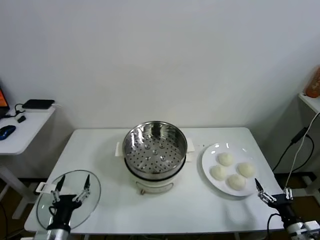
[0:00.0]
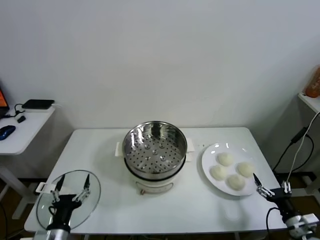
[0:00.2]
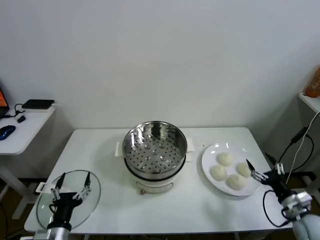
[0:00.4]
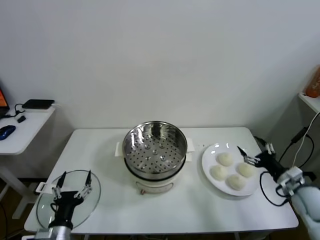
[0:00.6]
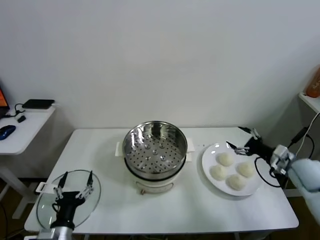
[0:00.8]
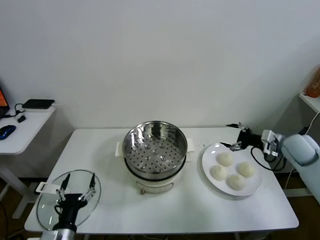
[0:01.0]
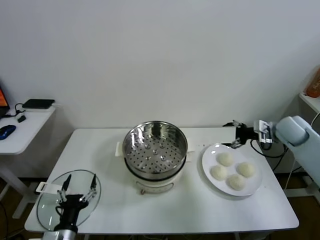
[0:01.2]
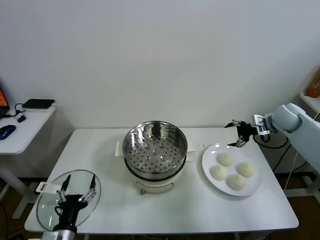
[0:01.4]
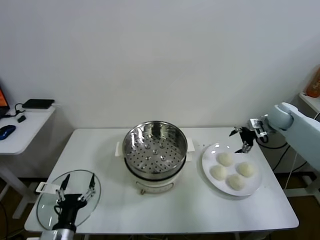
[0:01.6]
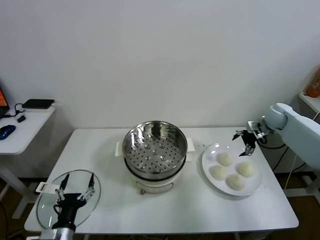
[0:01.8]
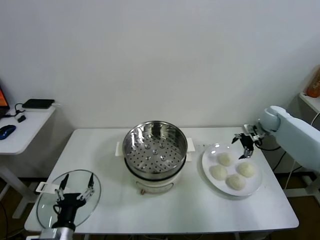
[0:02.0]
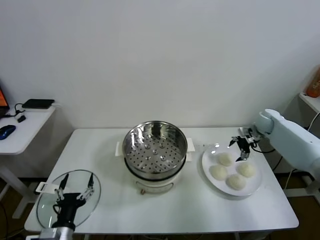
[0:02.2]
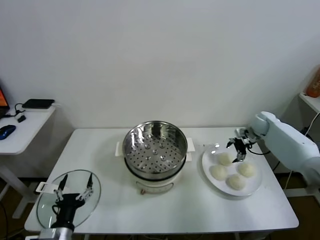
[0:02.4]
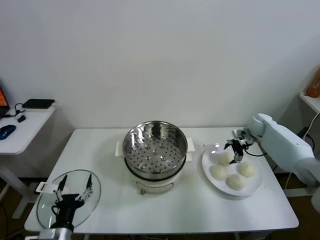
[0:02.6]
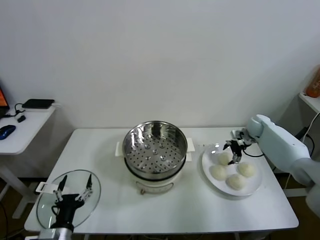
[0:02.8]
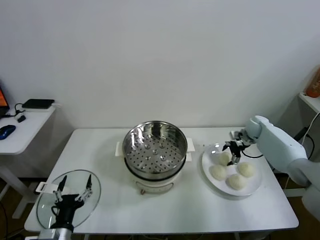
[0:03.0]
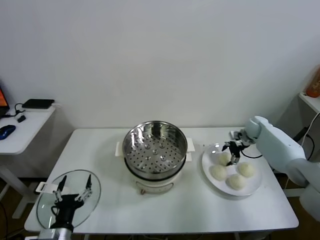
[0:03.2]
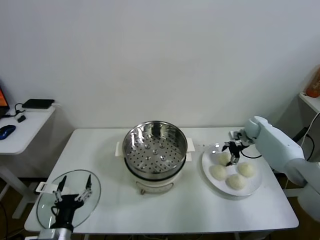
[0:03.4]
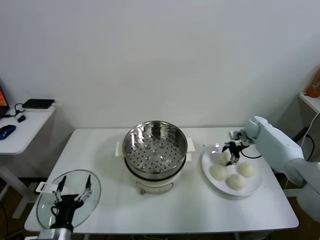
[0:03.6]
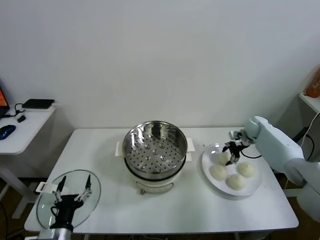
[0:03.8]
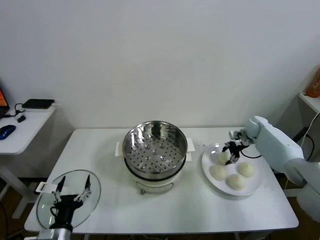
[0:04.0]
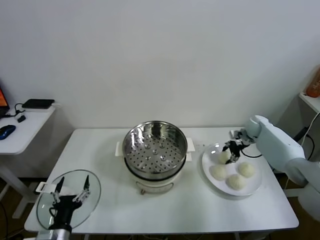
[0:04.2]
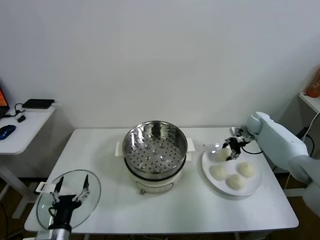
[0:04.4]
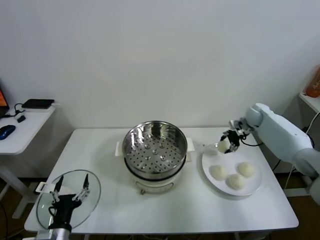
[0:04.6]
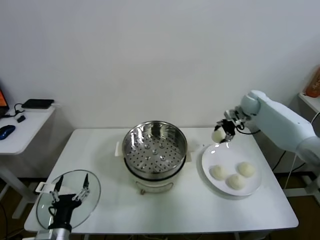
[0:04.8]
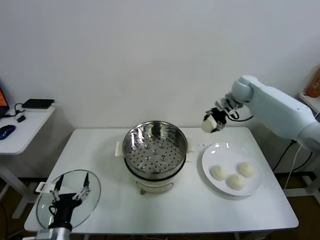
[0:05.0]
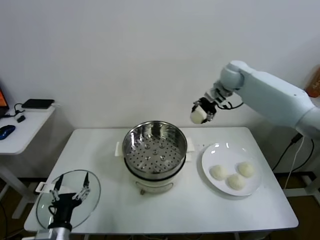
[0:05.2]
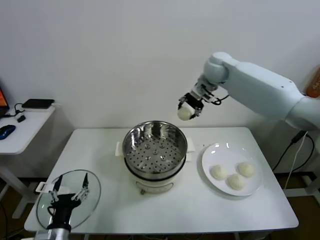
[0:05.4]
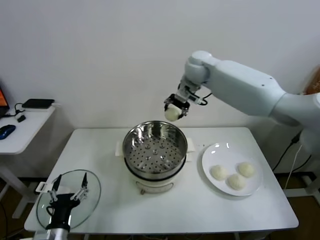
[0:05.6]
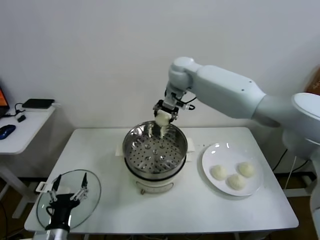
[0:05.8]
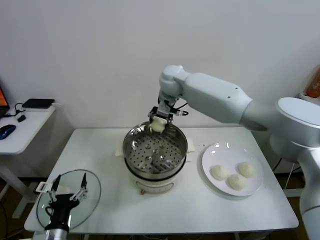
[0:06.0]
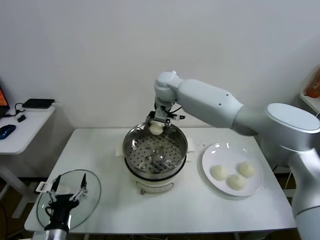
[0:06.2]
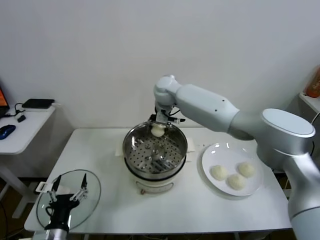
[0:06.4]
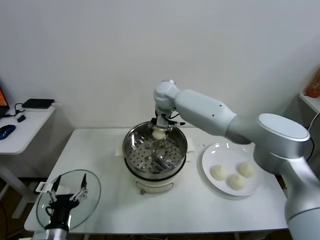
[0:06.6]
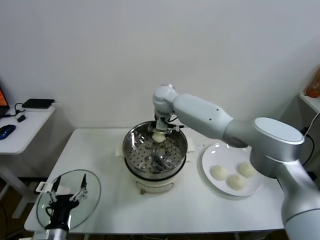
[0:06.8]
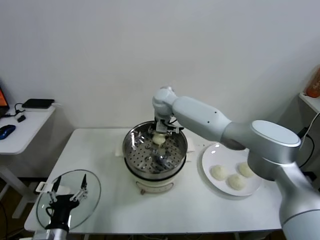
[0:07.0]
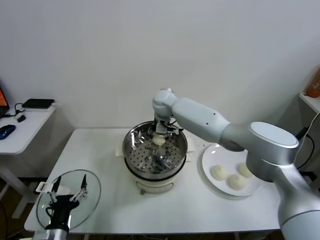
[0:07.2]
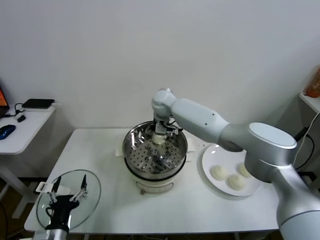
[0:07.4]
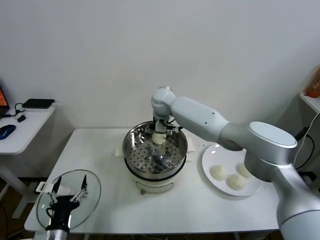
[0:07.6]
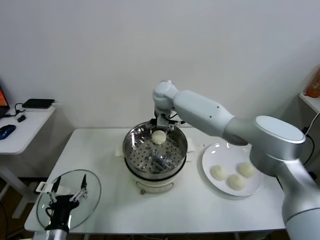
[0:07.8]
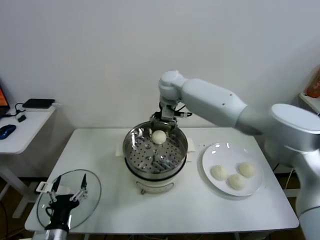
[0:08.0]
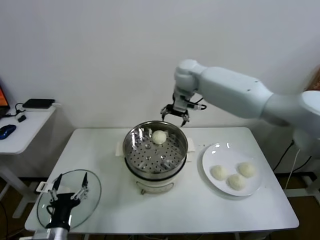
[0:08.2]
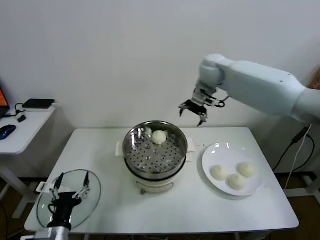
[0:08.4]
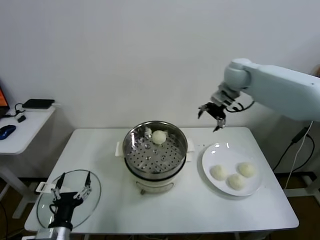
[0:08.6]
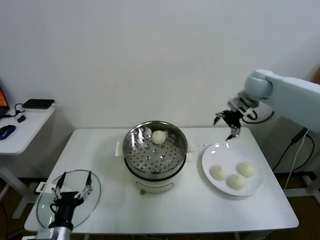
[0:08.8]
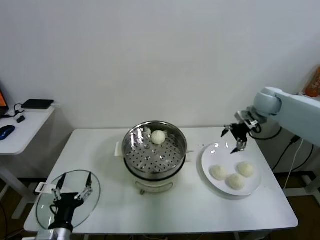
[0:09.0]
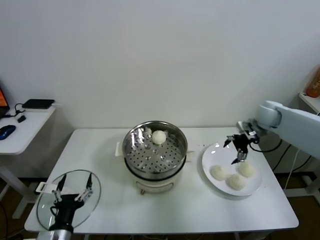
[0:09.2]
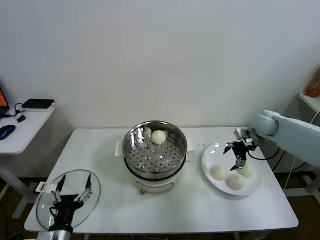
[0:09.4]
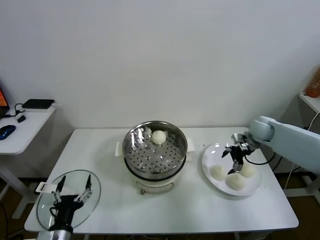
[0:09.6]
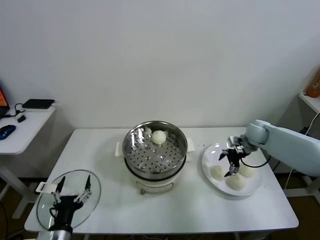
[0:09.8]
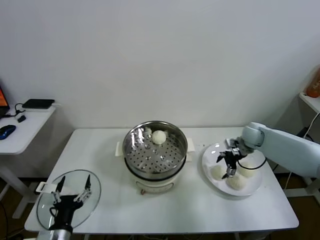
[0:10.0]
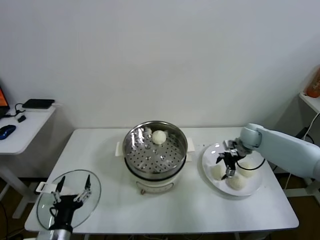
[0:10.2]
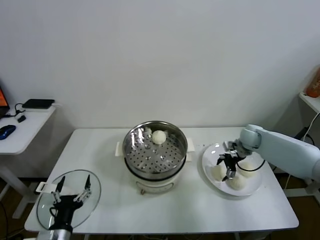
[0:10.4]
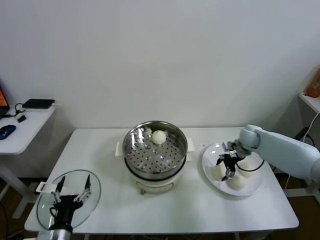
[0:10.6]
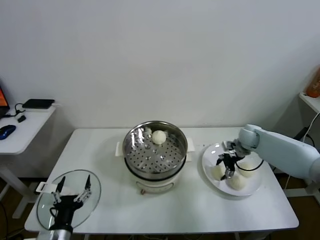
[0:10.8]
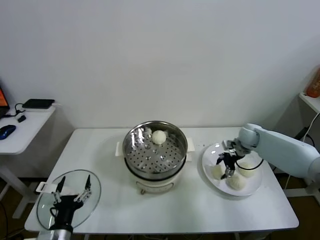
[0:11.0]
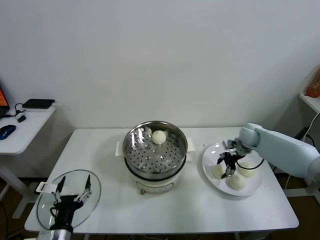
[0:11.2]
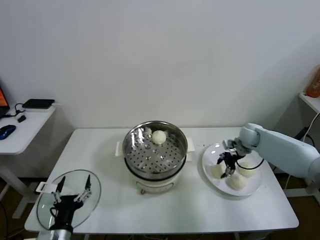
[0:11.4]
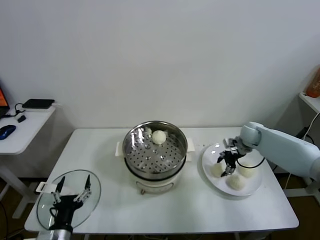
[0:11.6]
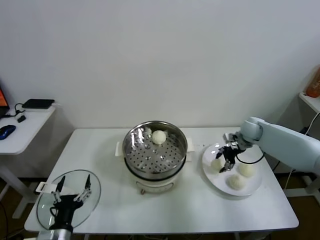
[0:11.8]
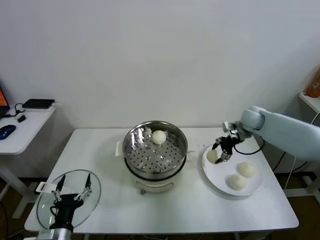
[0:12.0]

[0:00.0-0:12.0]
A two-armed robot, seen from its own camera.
Task of the whole recording: take steamed baozi put them in steamer.
Step, 0.0 to 4.0 s: Grasp the baozi in the plate with right gripper.
Step, 4.4 to 7.4 s: Place the baozi on the steamer with right gripper.
Step, 7.6 to 11.2 s: Grasp the baozi in the plate with right gripper.
1.6 to 3.0 s: The right gripper is displaced downward and forward by about 10 cm.
3.0 to 4.4 s: The right gripper closes its fingers.
4.4 to 6.0 s: The right gripper heads to the left and upward, covering some 40 cm.
6.0 to 7.6 s: The right gripper heads downward, covering roughly 10 cm, and opens its fingers.
7.6 to 9.0 s: The right gripper goes some 35 cm to the right.
9.0 to 10.4 s: The right gripper heads downward, covering approximately 15 cm.
10.4 to 12.0 s: The right gripper goes approximately 10 cm upward, and closes its fingers.

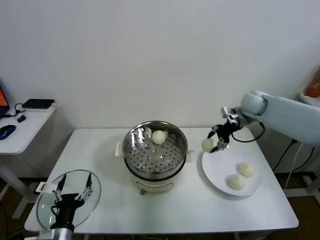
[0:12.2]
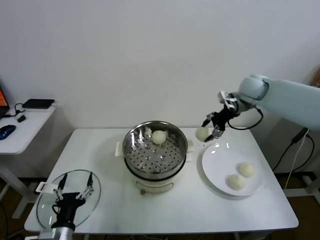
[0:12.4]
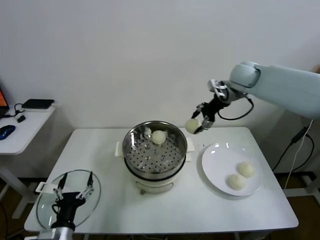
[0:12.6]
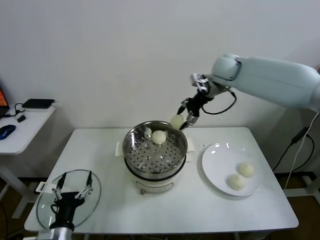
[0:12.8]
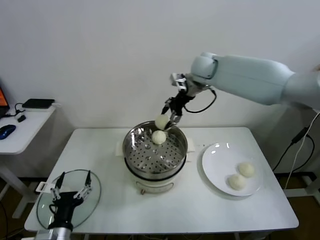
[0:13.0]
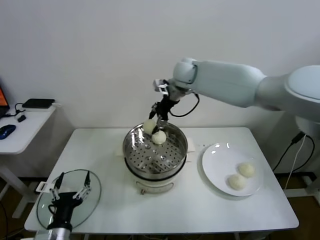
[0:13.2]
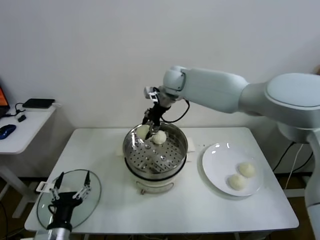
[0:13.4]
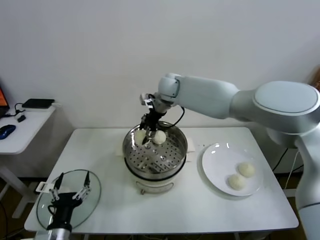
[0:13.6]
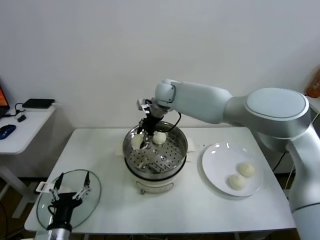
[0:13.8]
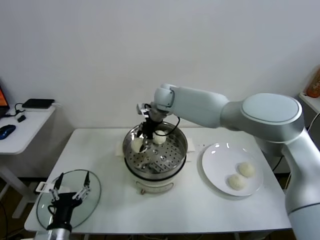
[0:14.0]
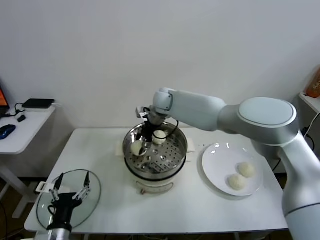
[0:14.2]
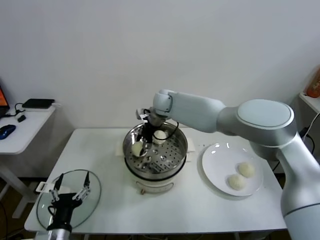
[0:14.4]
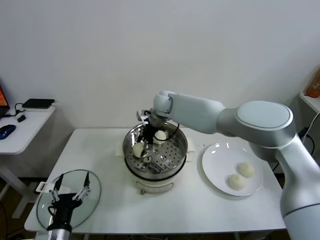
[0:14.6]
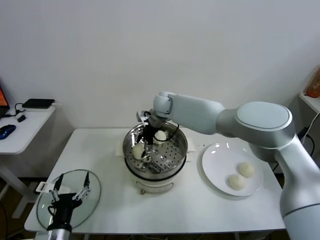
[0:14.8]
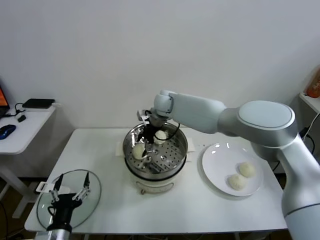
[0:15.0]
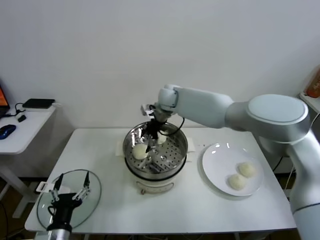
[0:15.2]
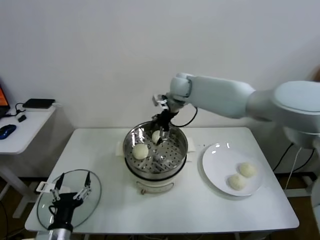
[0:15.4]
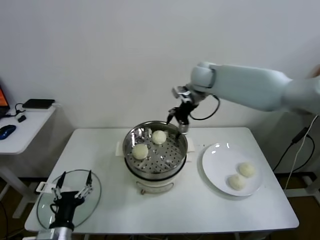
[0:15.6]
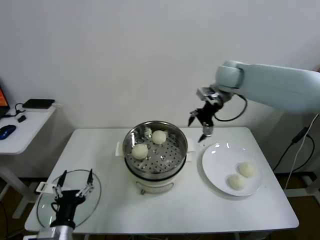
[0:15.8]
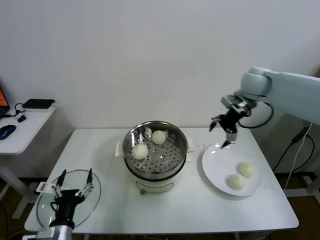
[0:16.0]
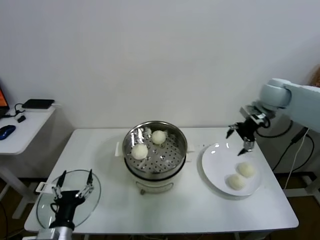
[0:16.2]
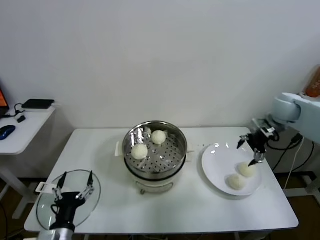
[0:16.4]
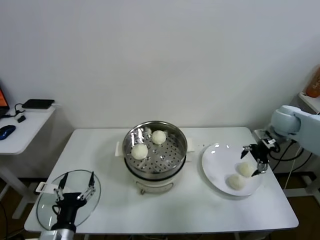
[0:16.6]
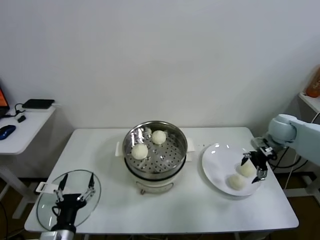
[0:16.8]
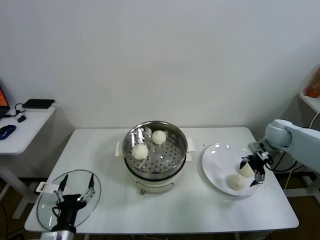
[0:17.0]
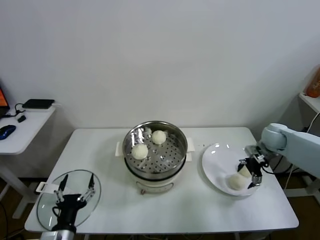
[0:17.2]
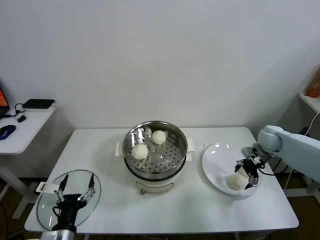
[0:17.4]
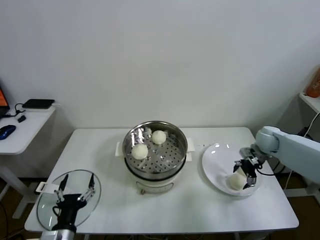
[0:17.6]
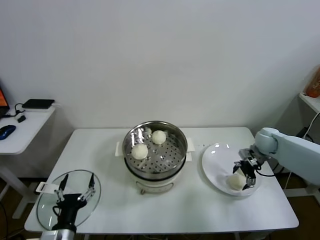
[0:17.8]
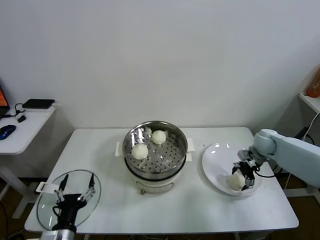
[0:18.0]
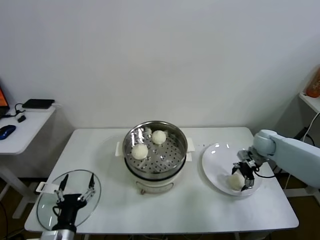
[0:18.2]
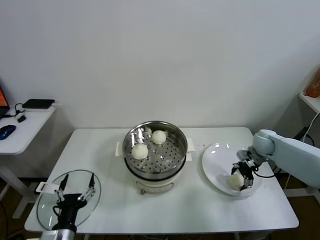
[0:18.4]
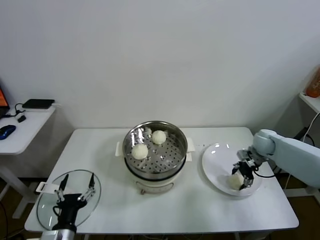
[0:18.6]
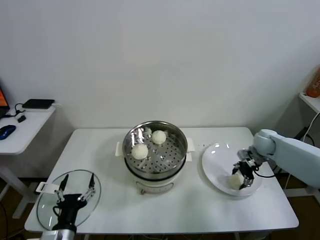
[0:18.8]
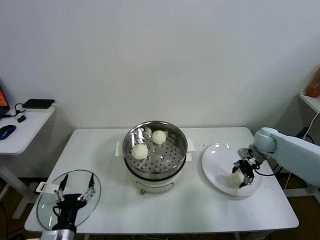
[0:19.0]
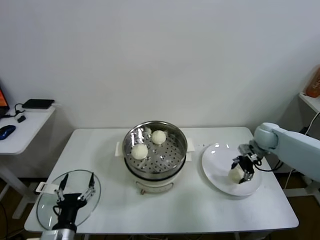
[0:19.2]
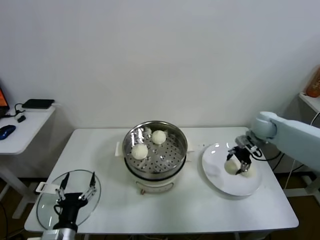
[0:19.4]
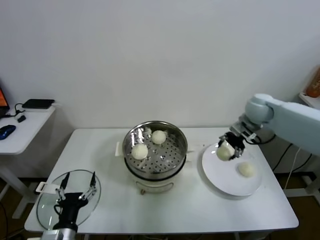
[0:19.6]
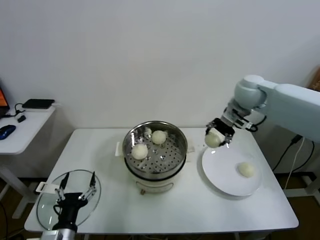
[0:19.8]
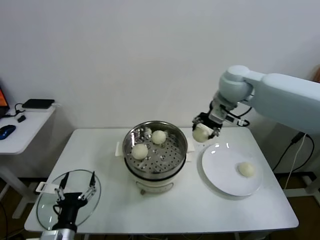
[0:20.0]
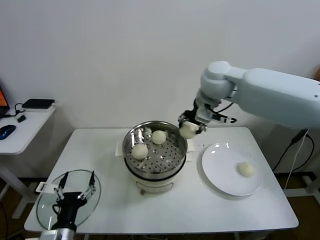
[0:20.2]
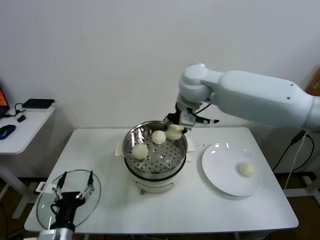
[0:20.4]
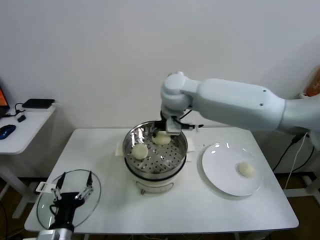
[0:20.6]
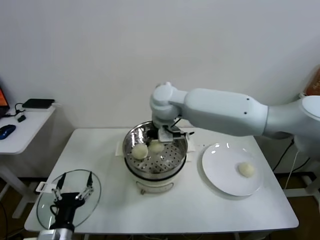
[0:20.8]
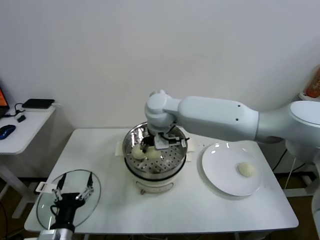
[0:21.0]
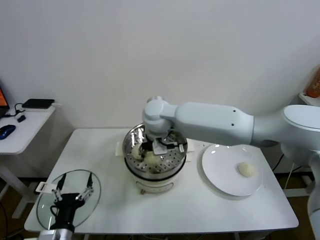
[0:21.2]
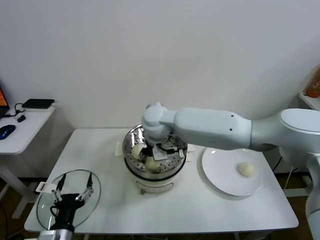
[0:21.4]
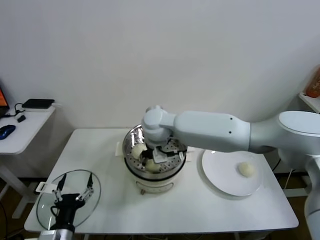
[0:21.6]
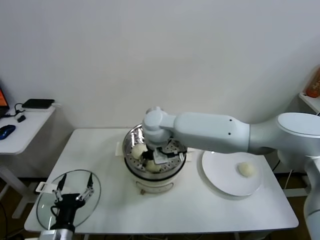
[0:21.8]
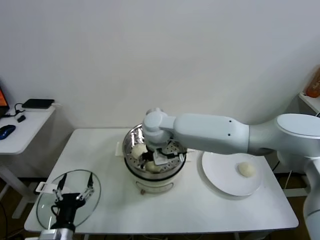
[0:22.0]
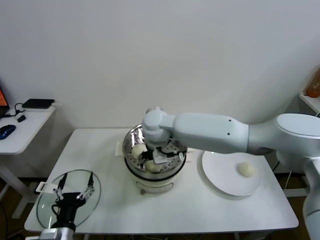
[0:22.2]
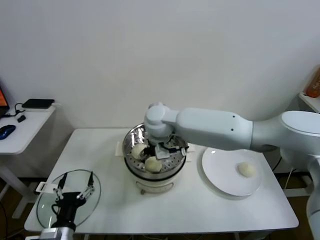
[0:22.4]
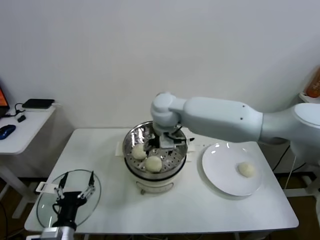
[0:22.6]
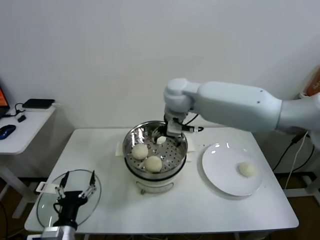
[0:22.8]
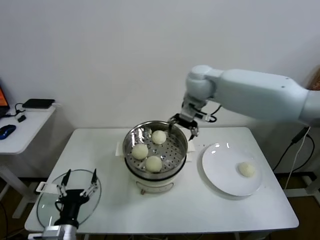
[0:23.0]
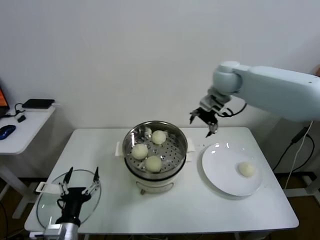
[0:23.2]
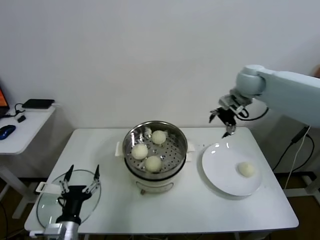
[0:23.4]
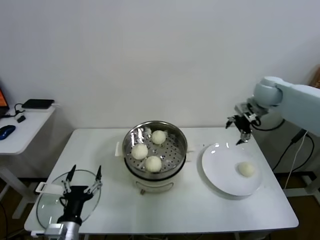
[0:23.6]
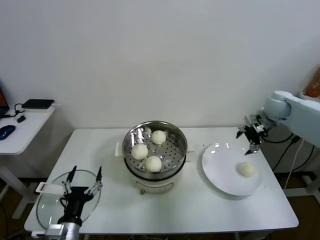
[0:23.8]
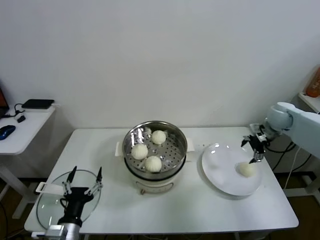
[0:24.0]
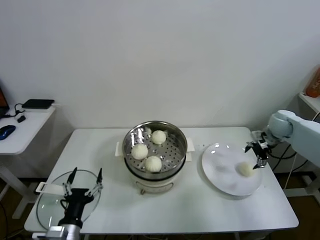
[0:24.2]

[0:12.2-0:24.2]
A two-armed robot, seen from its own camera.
Task of the whole recording: take steamed baozi put them in steamer.
Step, 12.2 to 15.0 s: Place the baozi on the steamer with right gripper.
Step, 15.2 to 18.8 s: Grasp the baozi in the plate with right gripper.
Step, 19.0 to 22.2 s: Place the baozi on the steamer with right gripper.
12.2 to 13.8 s: The right gripper travels to the left by approximately 30 cm.
13.8 to 15.2 s: The right gripper opens.
15.2 to 16.6 s: The right gripper goes roughly 40 cm to the right.
16.6 to 18.2 s: The right gripper travels downward by roughly 15 cm.
18.2 to 19.8 s: The right gripper is displaced upward and to the left by roughly 25 cm, and closes.
19.8 to 21.2 s: The right gripper moves to the left, some 30 cm.
21.2 to 22.6 s: The right gripper opens its fingers.
22.6 to 24.2 s: The right gripper shifts some 40 cm to the right.
